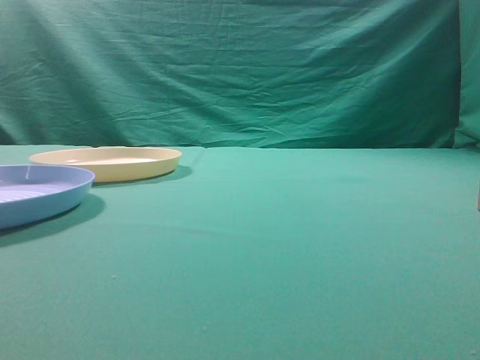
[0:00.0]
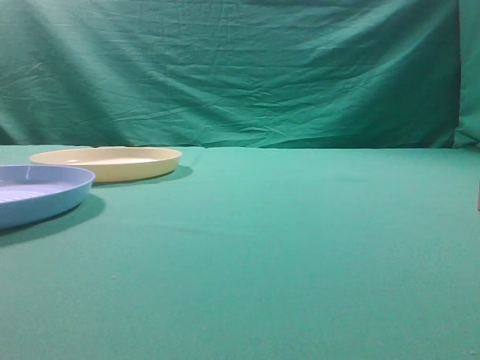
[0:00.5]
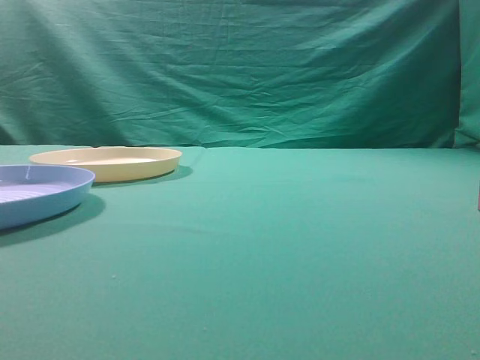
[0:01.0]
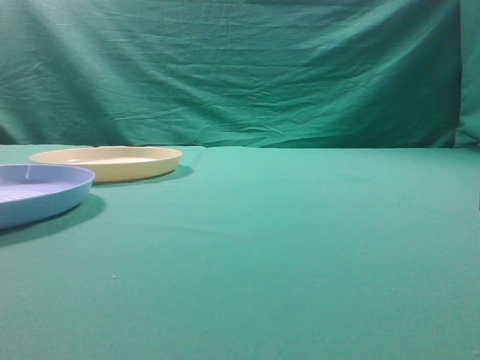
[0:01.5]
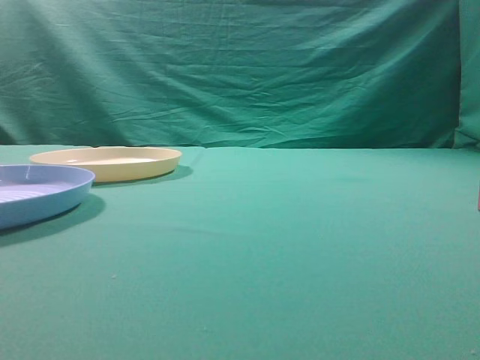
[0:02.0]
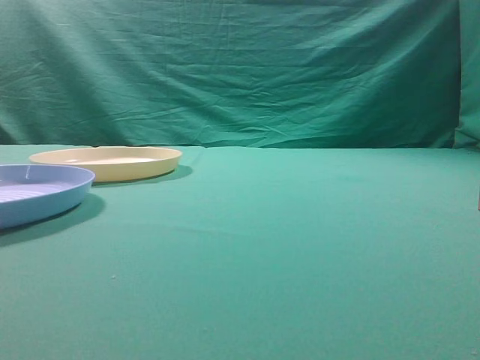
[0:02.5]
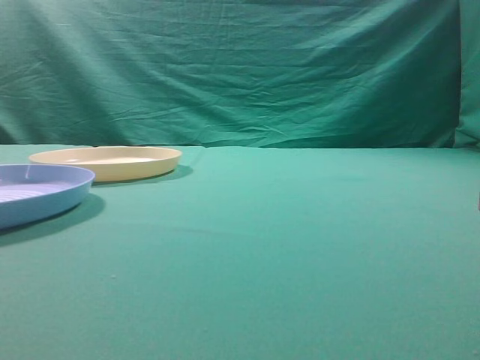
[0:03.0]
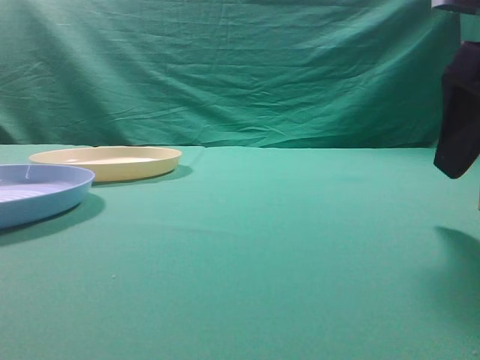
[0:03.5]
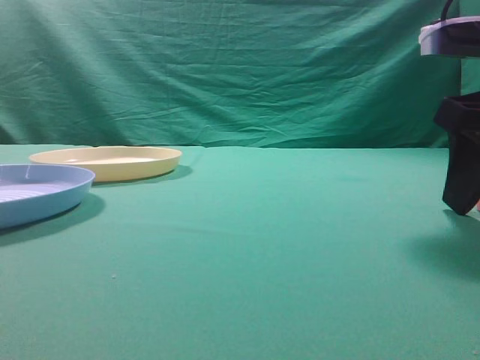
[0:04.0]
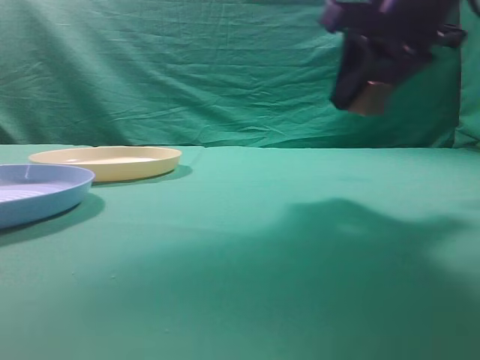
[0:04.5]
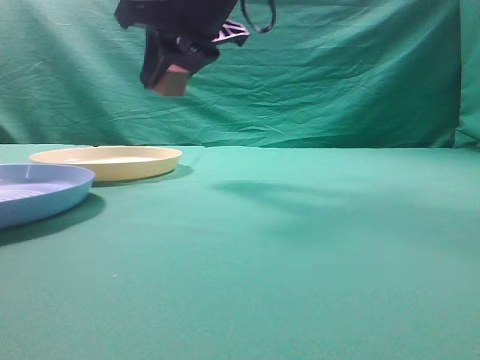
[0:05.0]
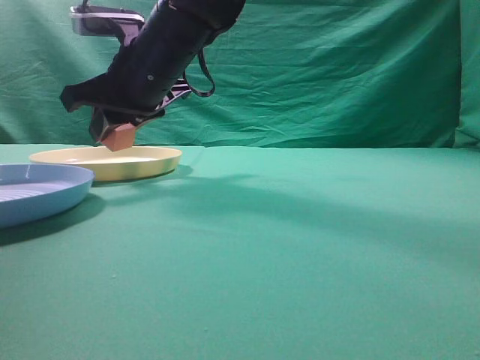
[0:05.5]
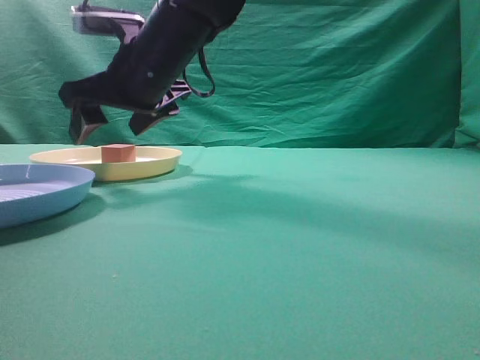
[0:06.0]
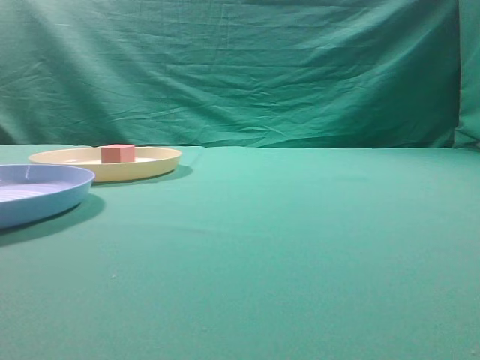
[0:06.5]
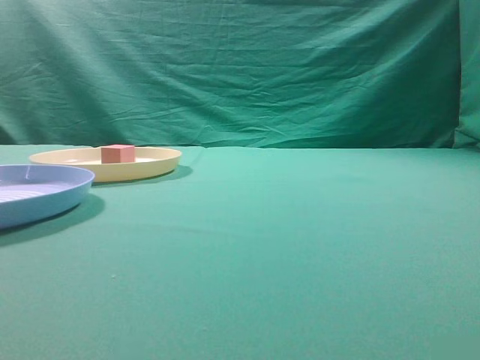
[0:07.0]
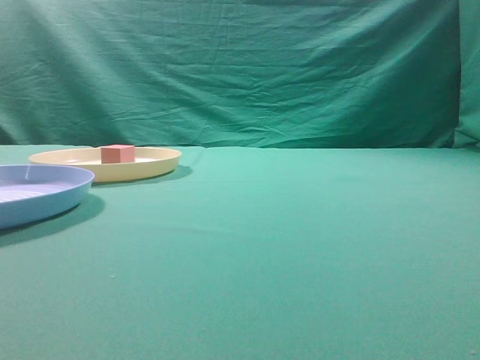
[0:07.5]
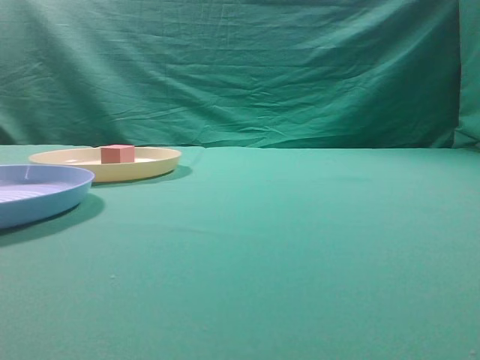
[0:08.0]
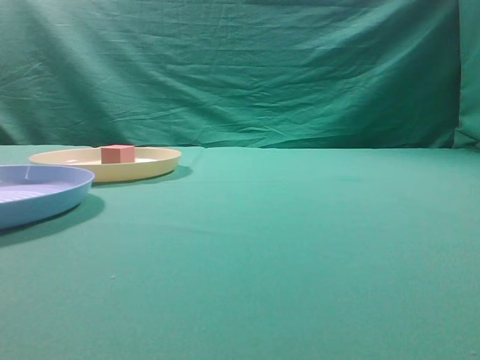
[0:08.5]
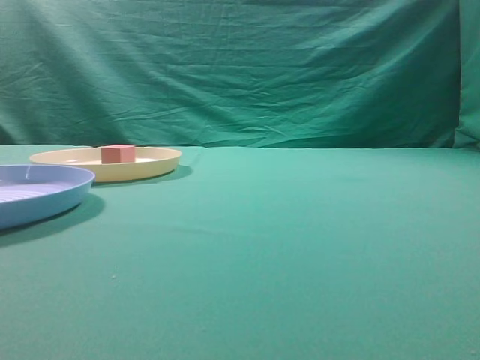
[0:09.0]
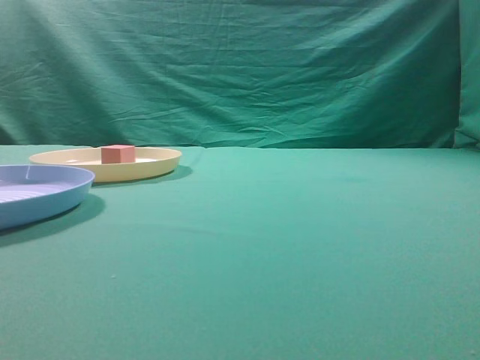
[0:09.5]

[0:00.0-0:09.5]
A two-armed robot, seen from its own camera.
Task of the whole recording: pick up the cube block from the table and put it on the plate.
Step, 0:00.0 to 0:04.0: Grasp the small cube on the table.
Step, 0:04.5 to 0:06.0: Place it into the yellow plate.
0:02.0 to 0:04.0: The right gripper is displaced forward, downward and to the left by some 20 cm, and opens.
0:04.0 to 0:05.5: The right gripper travels to the left and forward by some 35 cm.
0:05.5 to 0:07.5: The right gripper heads backward, to the right and upward, covering roughly 50 cm, and closes up.
